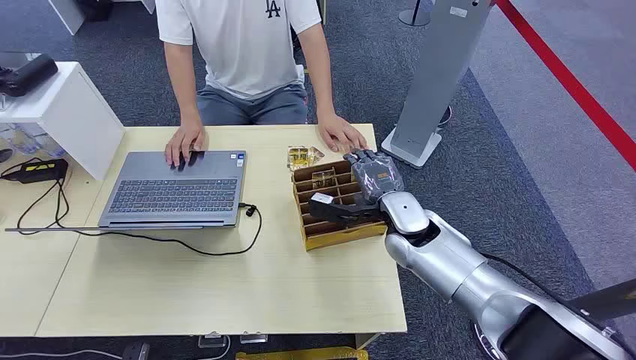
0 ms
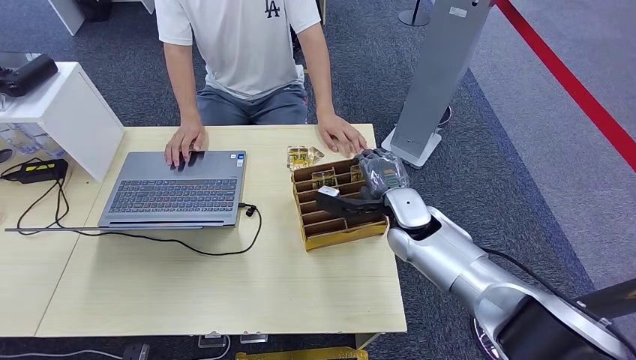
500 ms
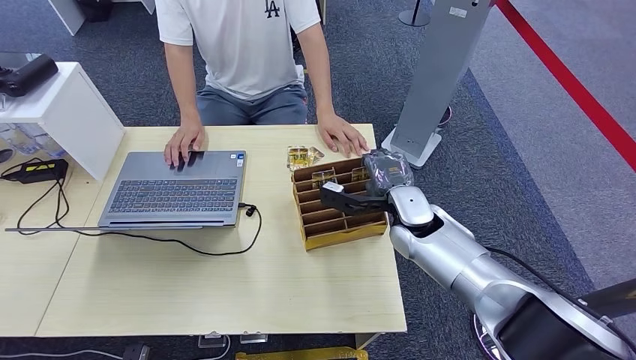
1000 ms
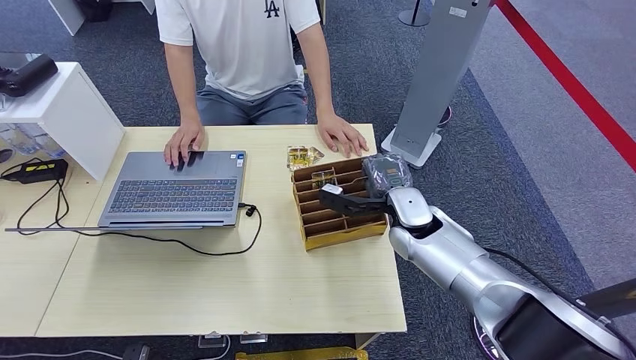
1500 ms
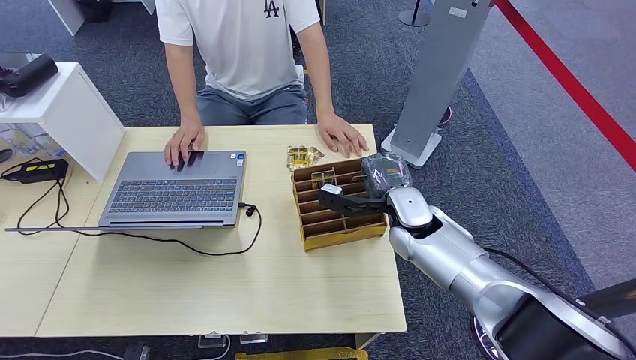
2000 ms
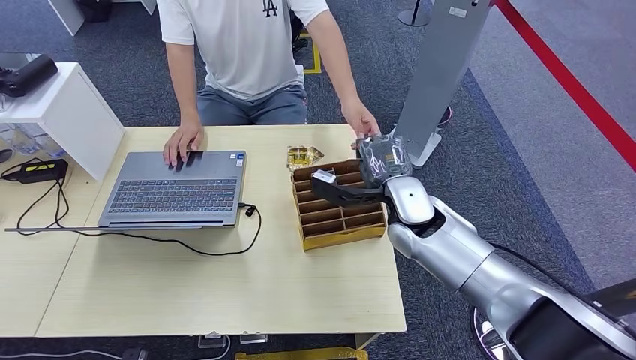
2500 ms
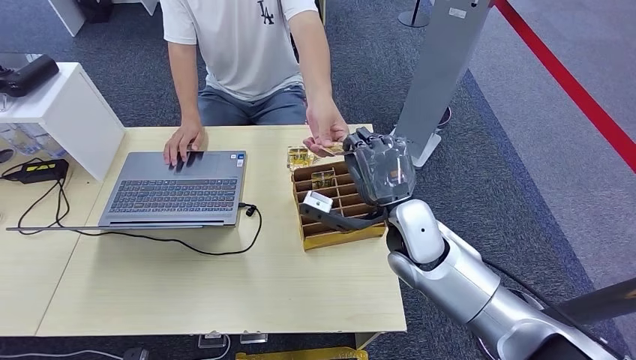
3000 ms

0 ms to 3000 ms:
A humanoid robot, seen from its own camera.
Step, 0 ms to 2000 ms: Pick up the room card from the card holder.
1500 ms to 3000 ms: The right hand moves upward and backward, some 10 cm.
